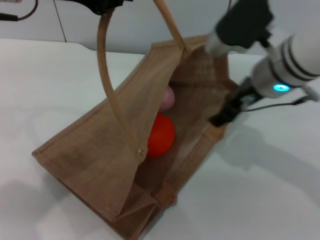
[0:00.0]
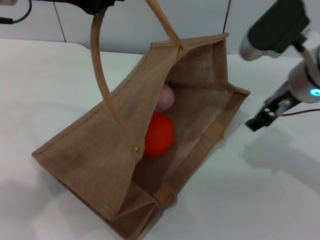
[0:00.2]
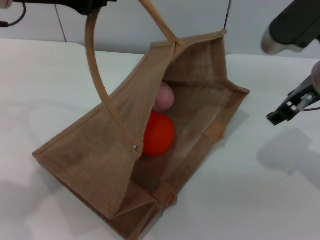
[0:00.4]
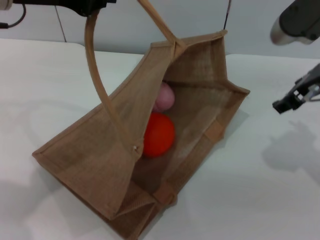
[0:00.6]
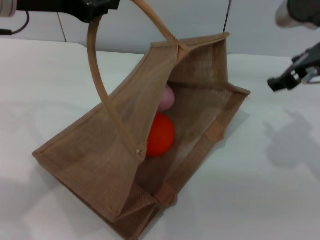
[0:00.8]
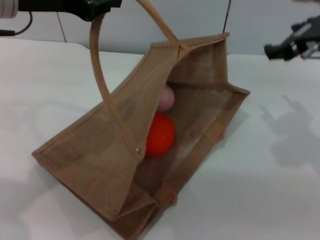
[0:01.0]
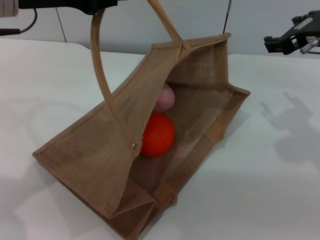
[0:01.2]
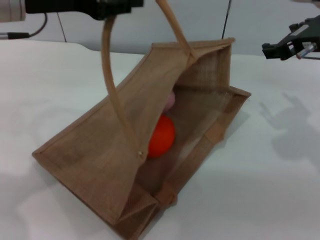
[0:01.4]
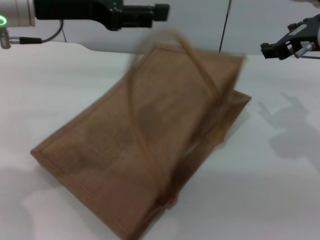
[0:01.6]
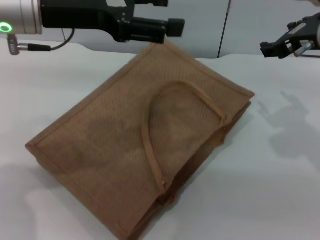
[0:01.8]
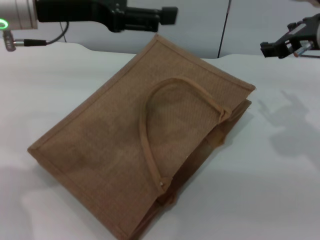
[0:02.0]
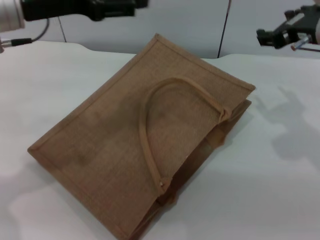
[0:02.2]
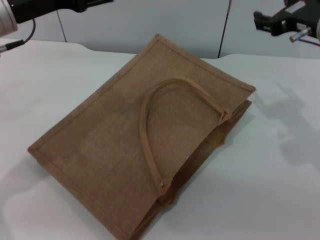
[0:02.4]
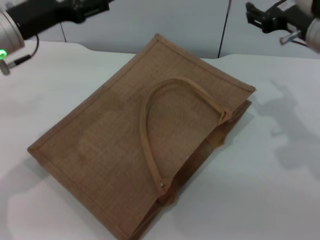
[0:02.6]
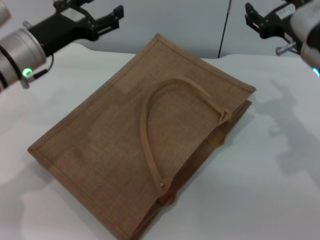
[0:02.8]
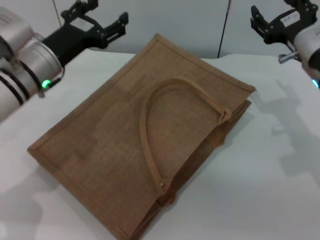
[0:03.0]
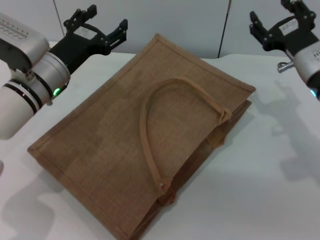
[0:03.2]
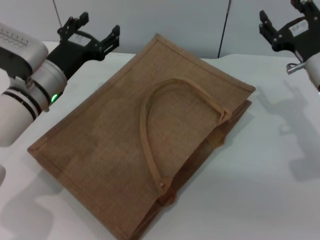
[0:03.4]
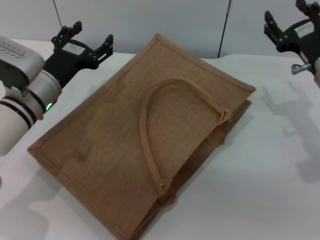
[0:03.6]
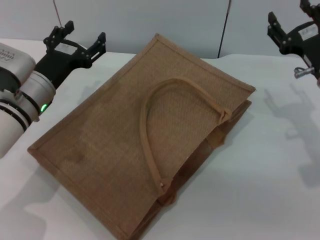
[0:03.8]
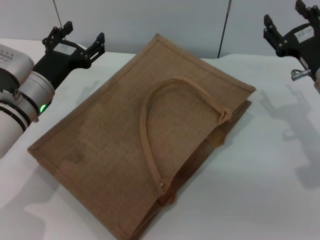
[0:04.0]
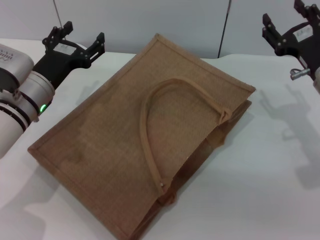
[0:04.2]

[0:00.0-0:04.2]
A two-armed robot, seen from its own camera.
Task of the whole recording: pick up the orange and peach from the table and place it in the brown handbag.
Step, 0:00.0 to 0:02.0: Lower the woven bag with the left gripper to close it.
0:00.0 to 0:01.4: The right gripper moves to the right, approximately 5 cm.
0:01.4 to 0:02.8: The left gripper shifts about 10 cm downward, and opens its fingers. Meanwhile the right gripper heads downward, covering some 5 cm.
0:02.8 to 0:04.2: Both grippers travel together downward, roughly 5 cm.
